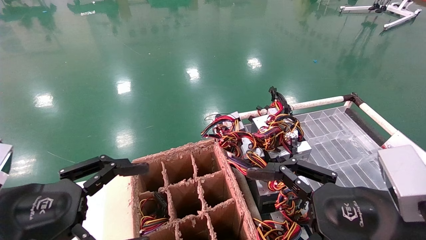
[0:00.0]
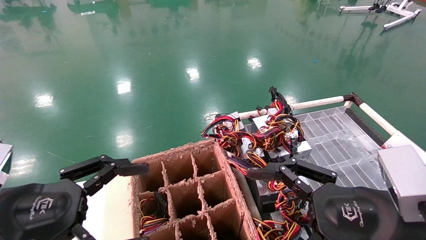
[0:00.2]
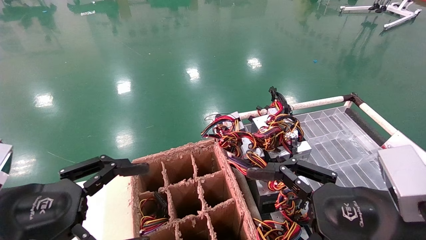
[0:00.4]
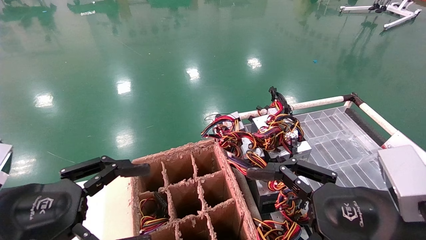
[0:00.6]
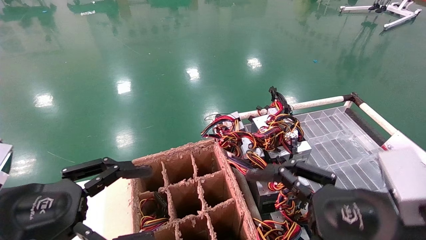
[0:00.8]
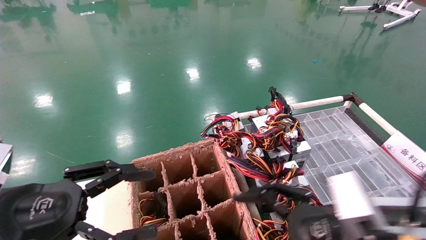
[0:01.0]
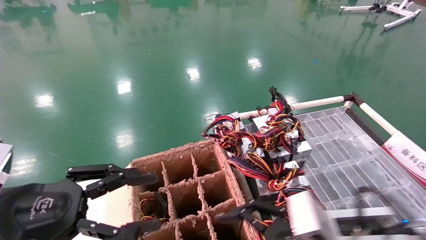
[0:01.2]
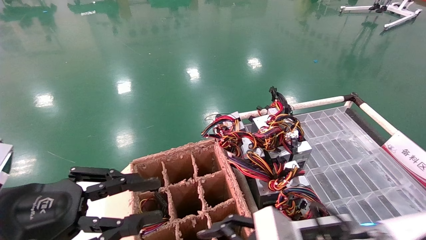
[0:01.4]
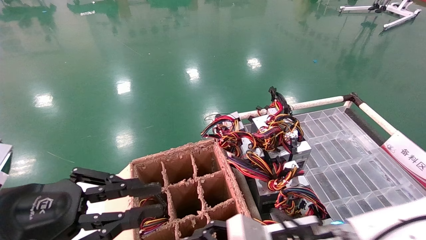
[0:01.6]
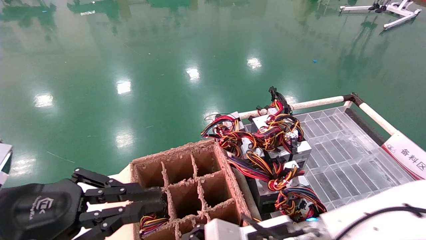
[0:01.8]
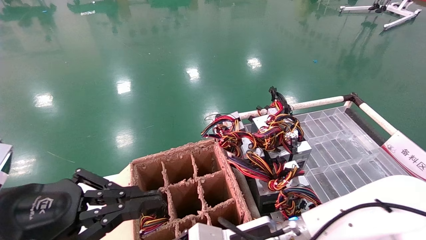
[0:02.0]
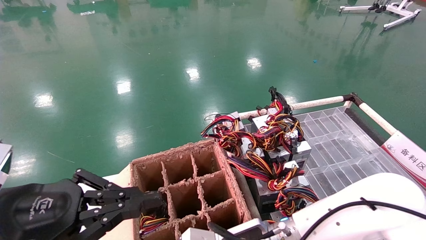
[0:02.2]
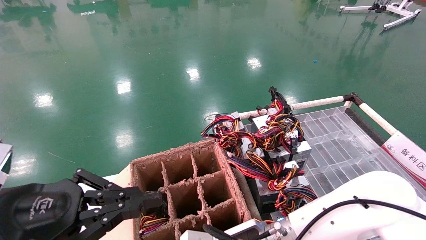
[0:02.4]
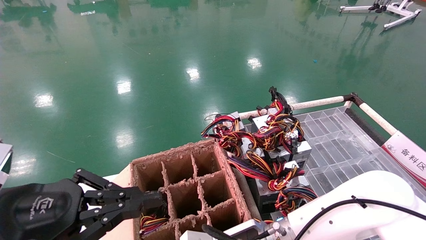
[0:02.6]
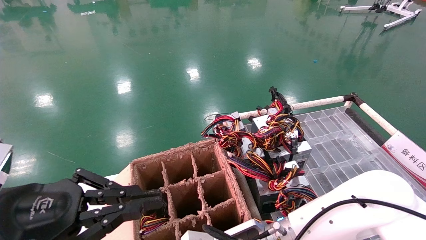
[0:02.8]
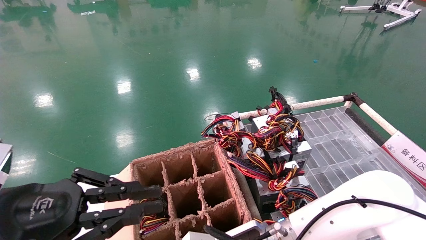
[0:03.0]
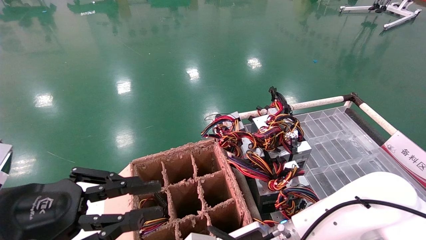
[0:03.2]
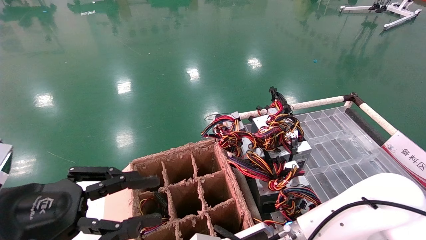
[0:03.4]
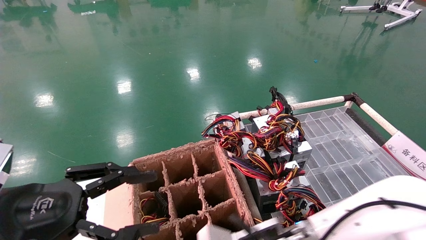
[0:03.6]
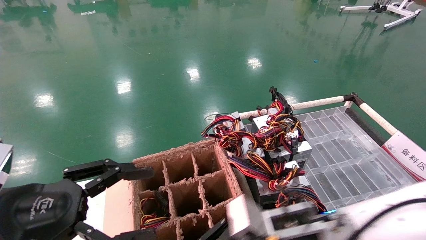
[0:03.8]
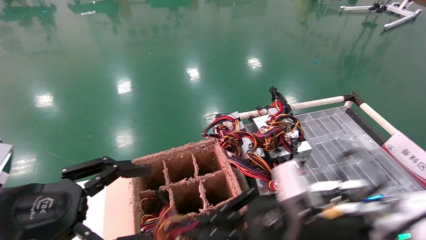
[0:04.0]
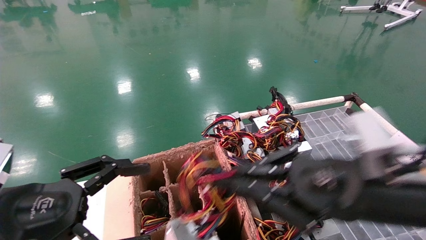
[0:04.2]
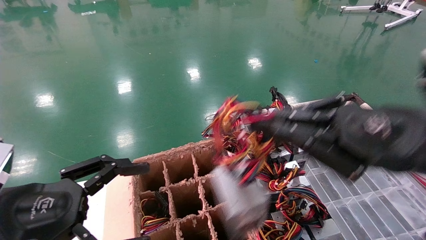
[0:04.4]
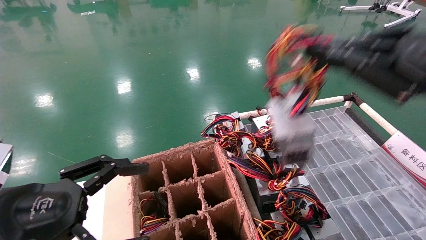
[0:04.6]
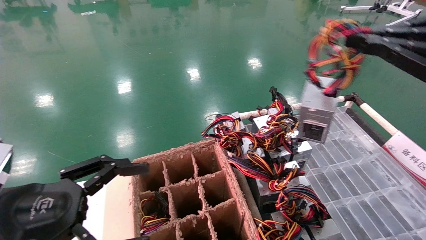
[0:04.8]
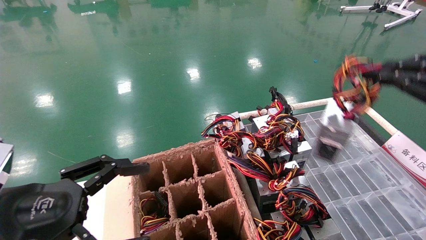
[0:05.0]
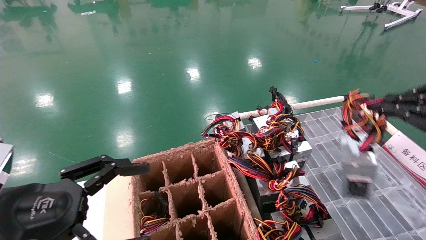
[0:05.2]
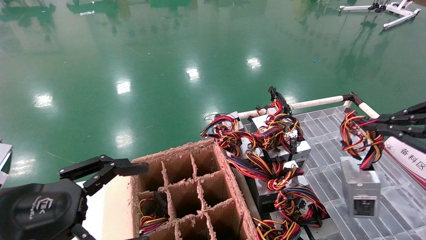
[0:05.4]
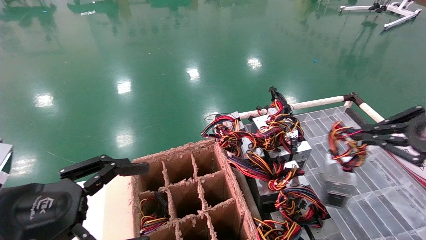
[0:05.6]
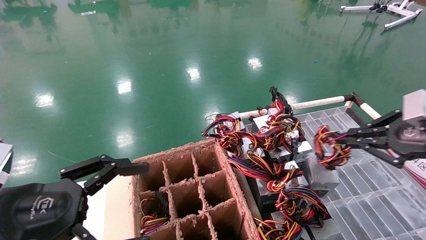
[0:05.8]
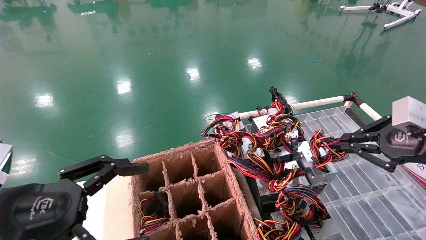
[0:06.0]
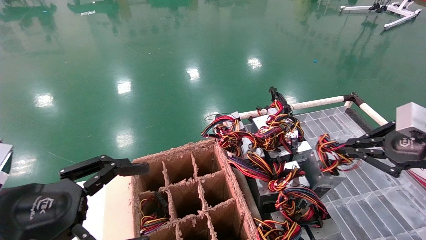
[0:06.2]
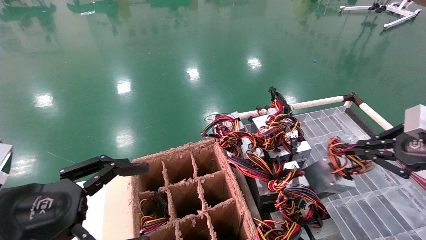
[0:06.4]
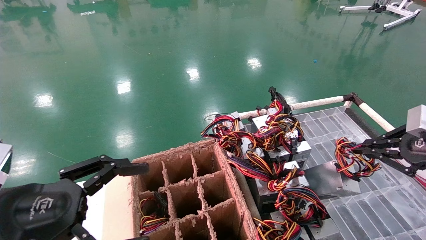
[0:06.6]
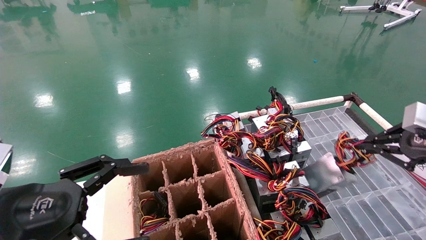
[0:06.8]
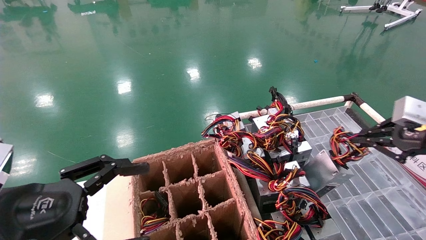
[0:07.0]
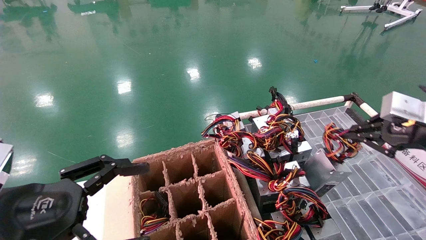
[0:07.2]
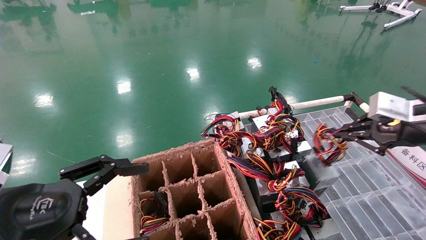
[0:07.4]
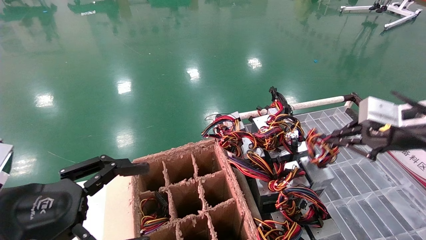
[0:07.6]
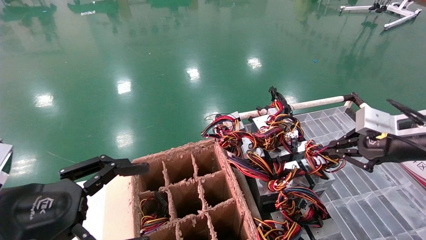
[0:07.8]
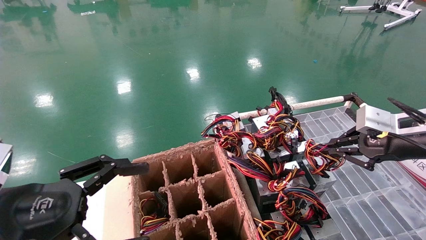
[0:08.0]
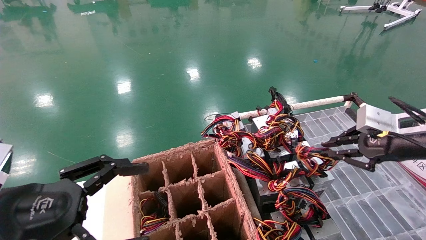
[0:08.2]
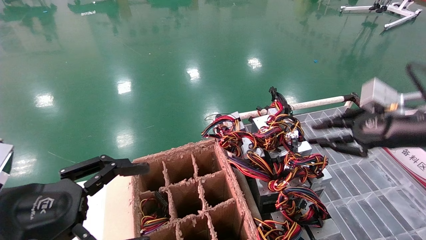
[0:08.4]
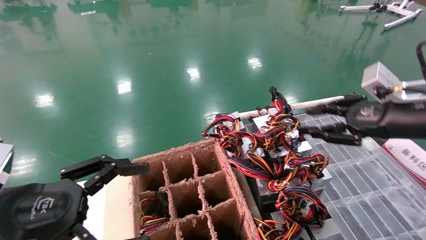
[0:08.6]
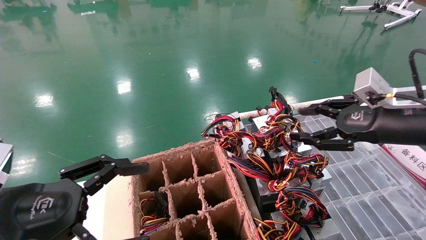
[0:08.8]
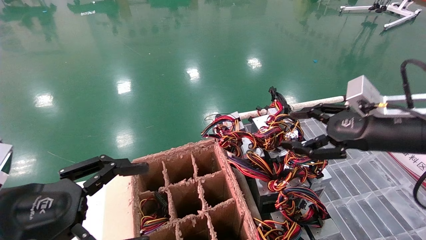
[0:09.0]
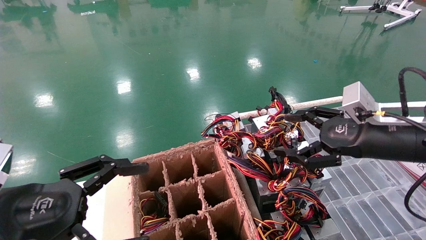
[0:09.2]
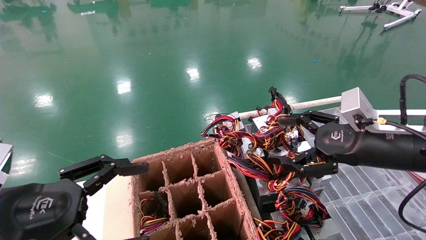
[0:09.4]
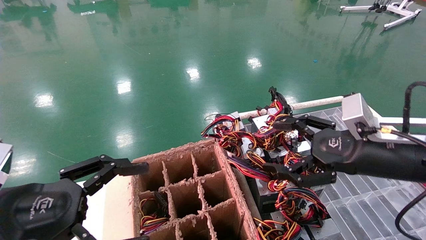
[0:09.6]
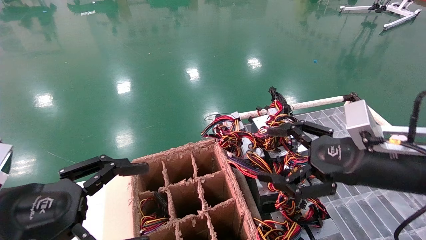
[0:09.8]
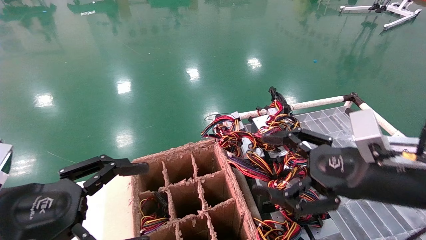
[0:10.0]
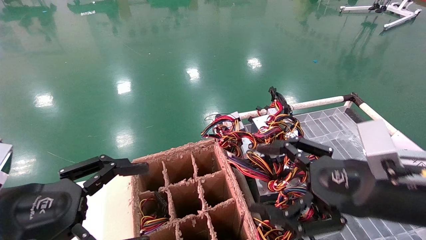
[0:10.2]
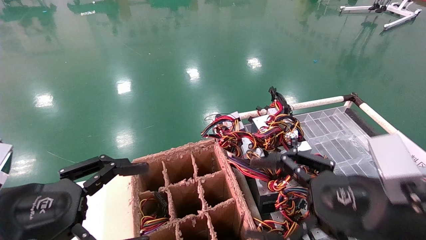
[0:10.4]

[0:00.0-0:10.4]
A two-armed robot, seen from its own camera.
Step, 0:00.6 to 0:03.0: Grab and lift the power supply from the large box.
Step, 0:03.2 to 0:08.2: Place the power supply on the operating table.
0:00.0 to 0:01.4: The left gripper closes. The right gripper is displaced downward, to the left and forward by some 15 cm.
0:01.4 to 0:03.0: The left gripper closes its fingers; the right gripper goes roughly 10 cm to the left, and closes up.
0:03.0 to 0:04.4: The left gripper opens its fingers. Meanwhile the right gripper is displaced upward and to the right by some 30 cm.
0:04.4 to 0:06.0: The right gripper moves to the right and forward, roughly 15 cm.
0:06.0 to 0:07.4: The grippers stay close to where they were, moving slightly.
0:07.4 to 0:09.0: The right gripper is displaced to the left by about 10 cm, and opens up.
0:09.0 to 0:10.4: The right gripper goes about 15 cm backward, to the left and downward.
